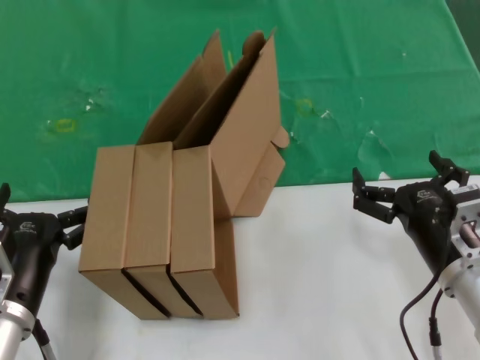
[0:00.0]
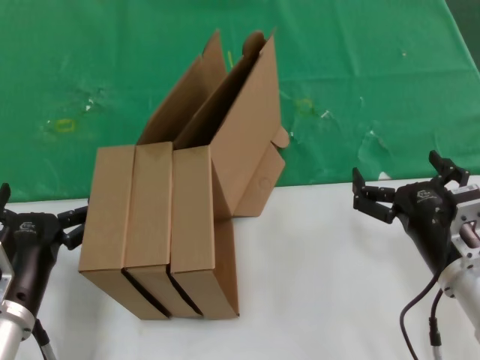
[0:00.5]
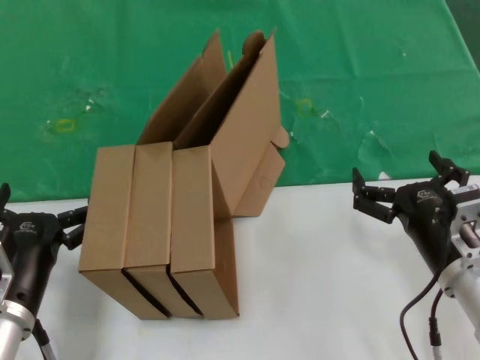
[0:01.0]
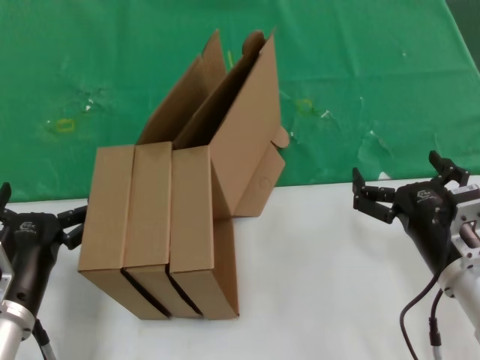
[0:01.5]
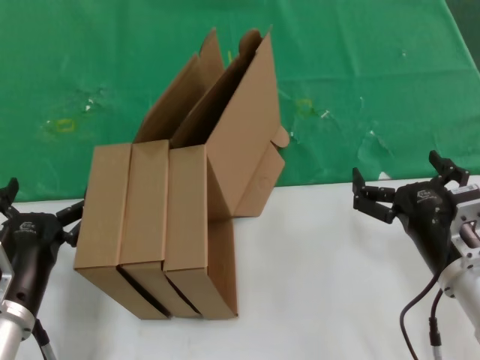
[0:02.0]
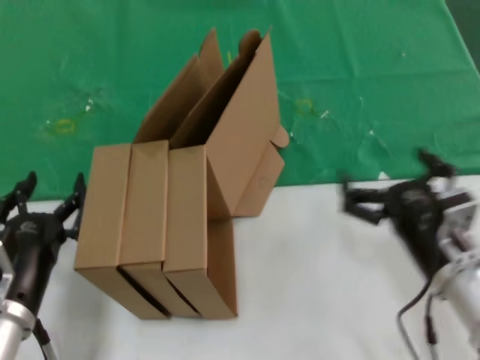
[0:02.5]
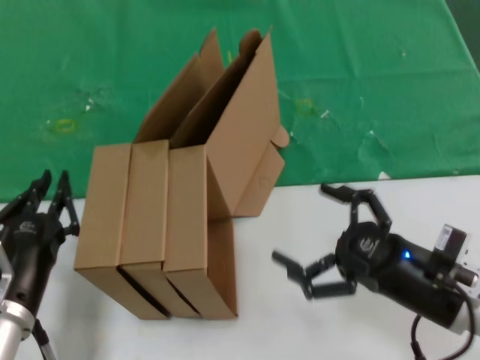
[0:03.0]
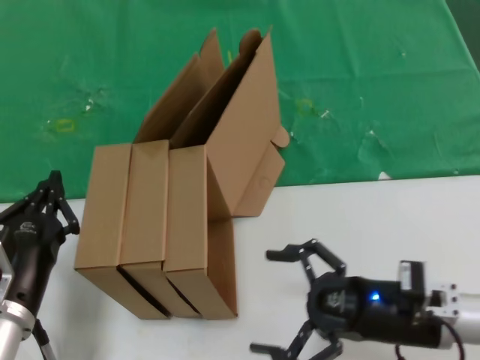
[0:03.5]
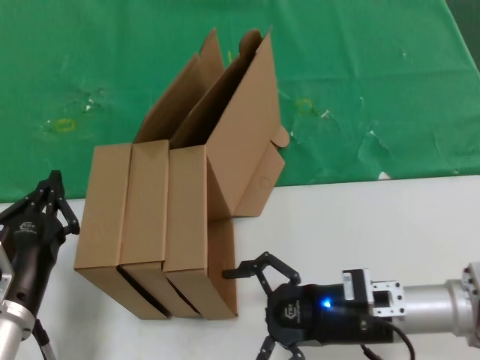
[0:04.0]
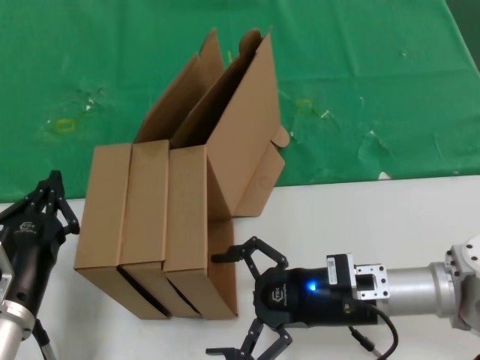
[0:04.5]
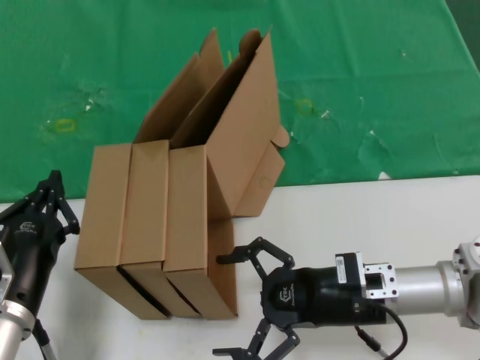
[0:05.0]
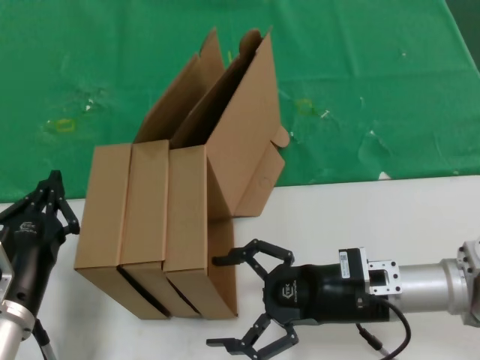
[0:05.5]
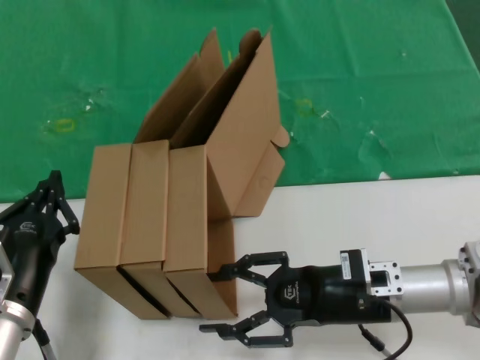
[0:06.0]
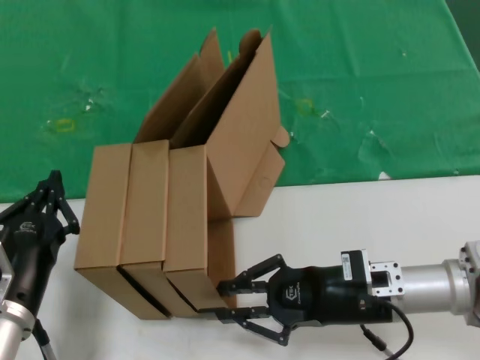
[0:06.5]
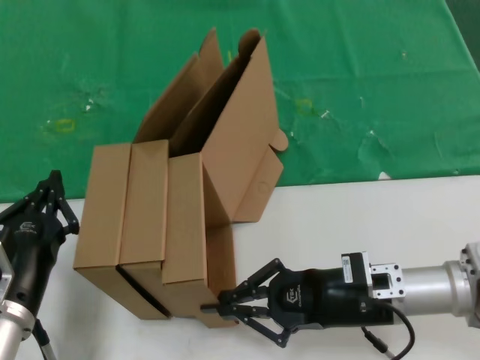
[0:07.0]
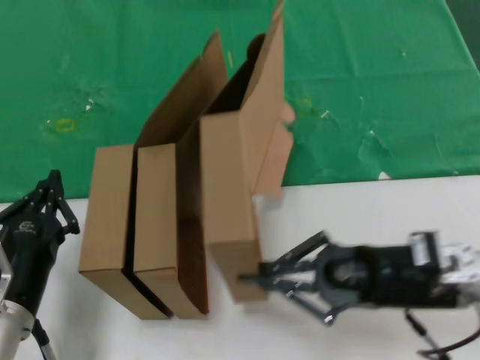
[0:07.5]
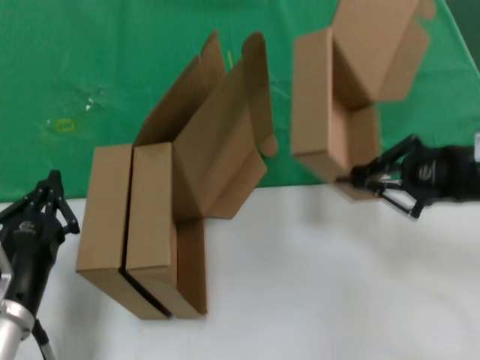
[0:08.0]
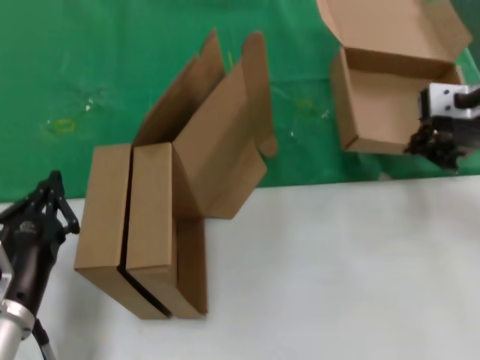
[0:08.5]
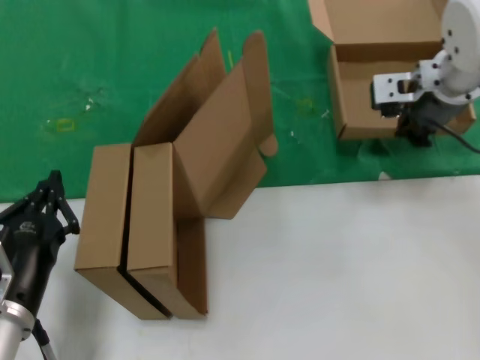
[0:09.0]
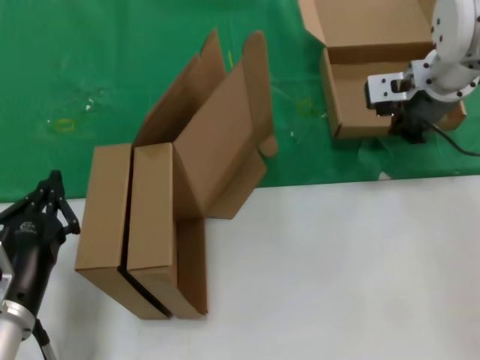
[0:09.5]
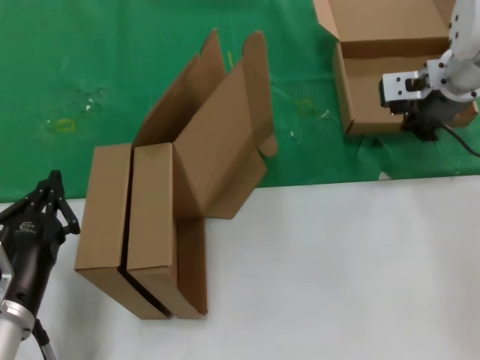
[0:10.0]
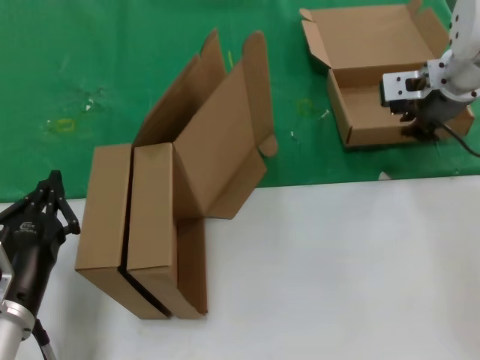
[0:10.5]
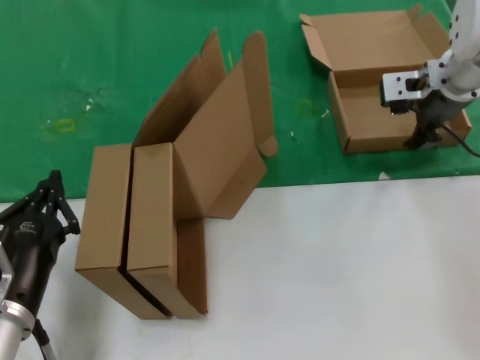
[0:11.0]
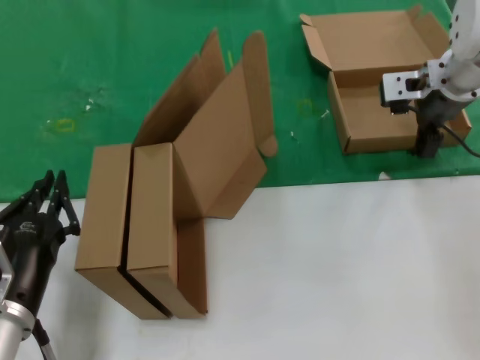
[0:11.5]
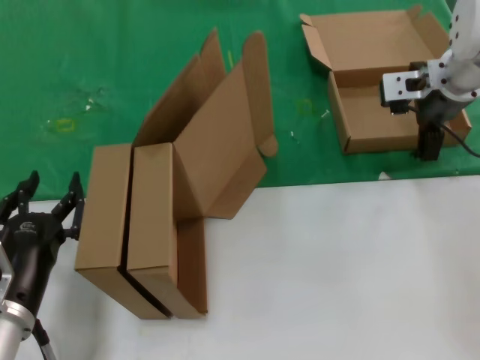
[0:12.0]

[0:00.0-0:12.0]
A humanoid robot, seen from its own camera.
Task of the whole recording: pick up the paper box and put it at the back.
Step, 0:00.0 to 0:06.5: Grasp the paper box.
Step, 0:07.0 to 0:10.5: Place the paper box on the table.
0:00.0 to 0:02.0: Both hands stay about where they are.
0:02.0 to 0:04.0: The right hand shifts by about 5 cm.
0:04.0 to 0:06.0: The hands stay close to where they were, moving slightly.
0:06.0 to 0:08.0: The right hand moves upward and to the right, some 20 cm.
0:08.0 to 0:10.0: The right hand moves forward and to the left, some 20 cm.
0:10.0 to 0:12.0: Both hands stay put.

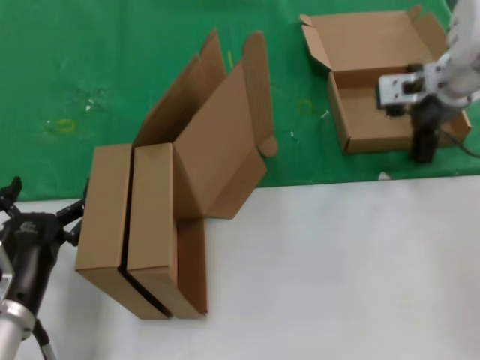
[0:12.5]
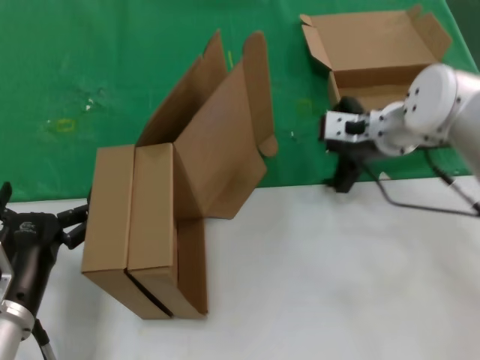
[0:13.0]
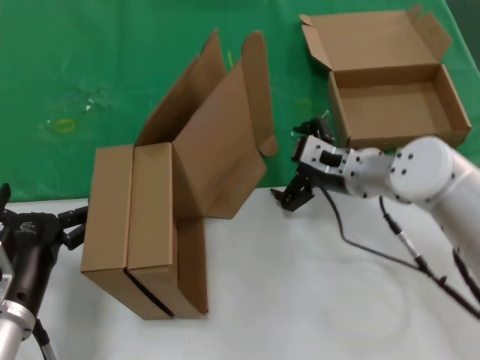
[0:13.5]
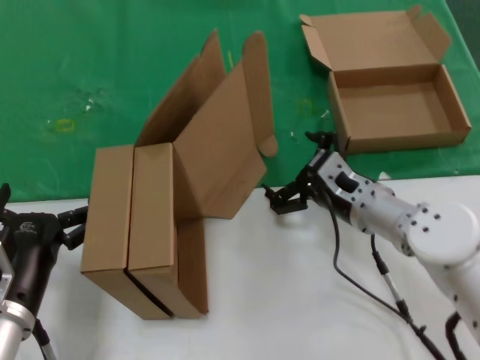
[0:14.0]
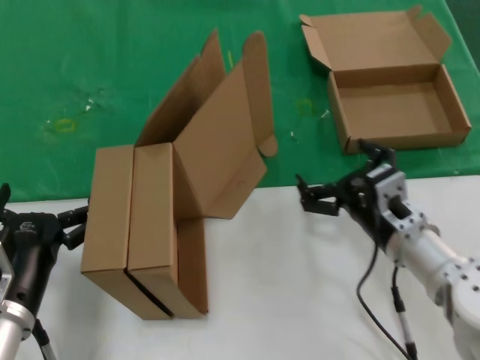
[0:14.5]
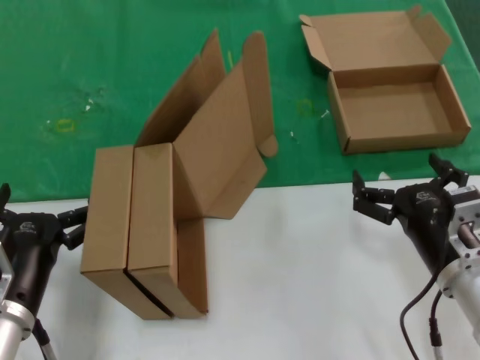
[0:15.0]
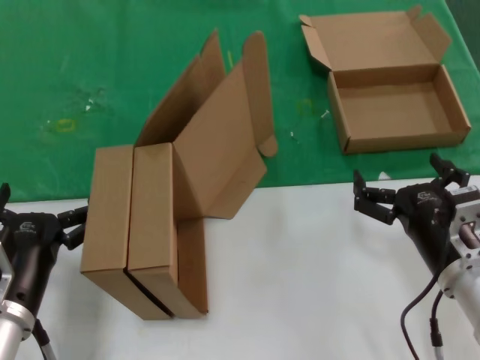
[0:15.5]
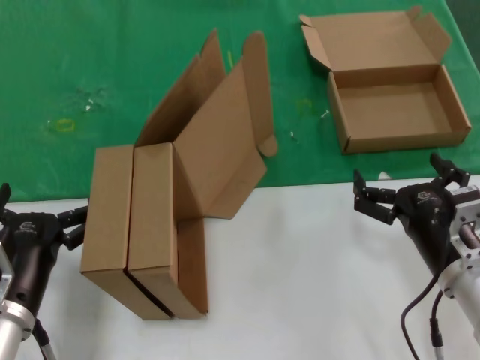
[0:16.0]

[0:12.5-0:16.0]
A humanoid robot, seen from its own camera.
Task of the whole recording: pick up the paper box and put it at the back.
0:12.5 to 0:14.5: The right hand is displaced downward and backward by some 25 cm.
0:14.5 to 0:16.0: The right hand heads backward, covering some 5 cm.
